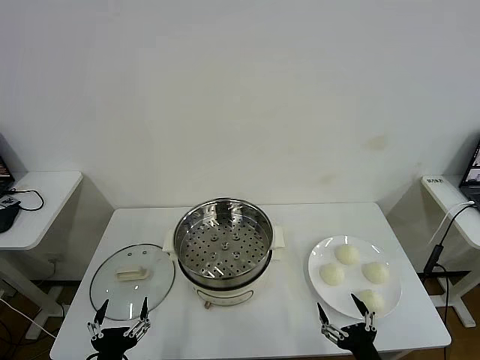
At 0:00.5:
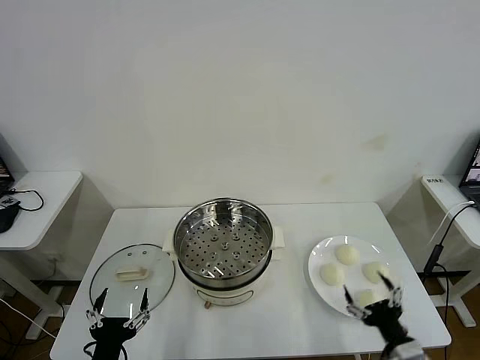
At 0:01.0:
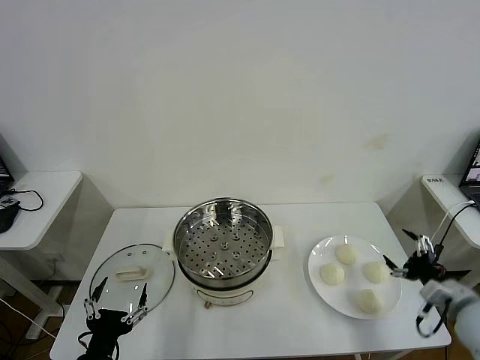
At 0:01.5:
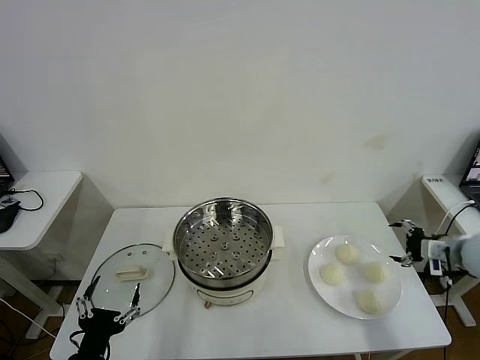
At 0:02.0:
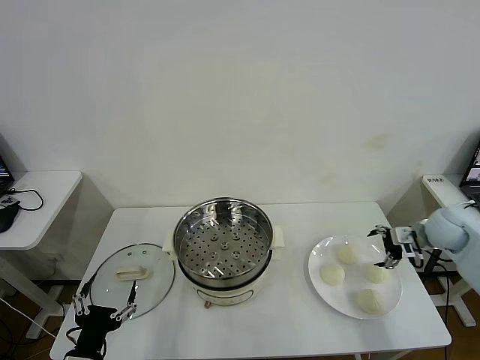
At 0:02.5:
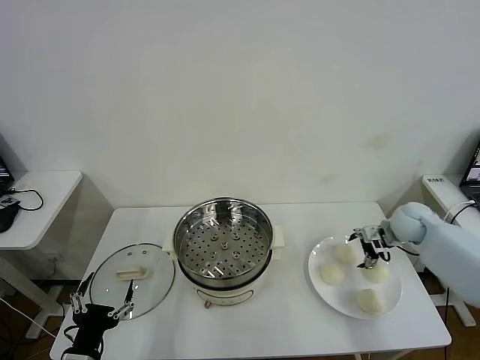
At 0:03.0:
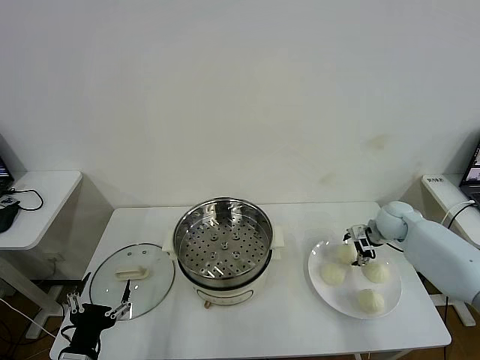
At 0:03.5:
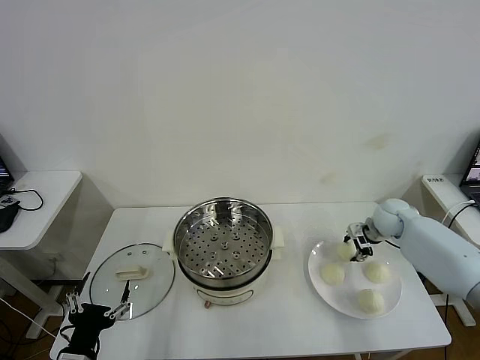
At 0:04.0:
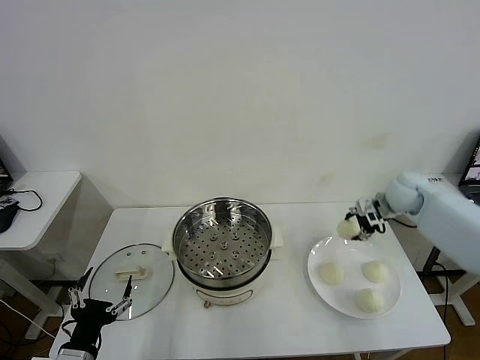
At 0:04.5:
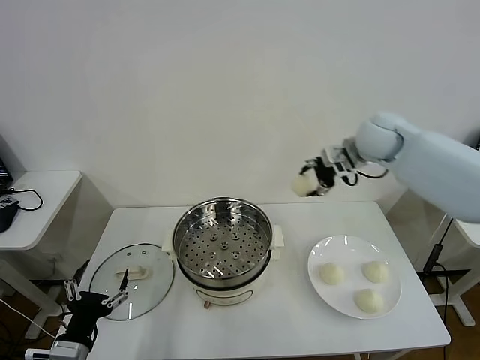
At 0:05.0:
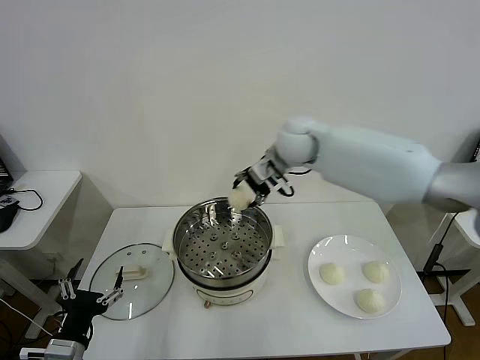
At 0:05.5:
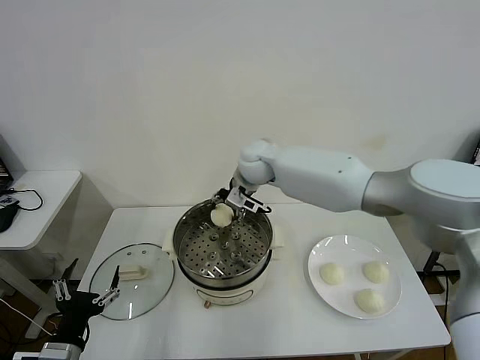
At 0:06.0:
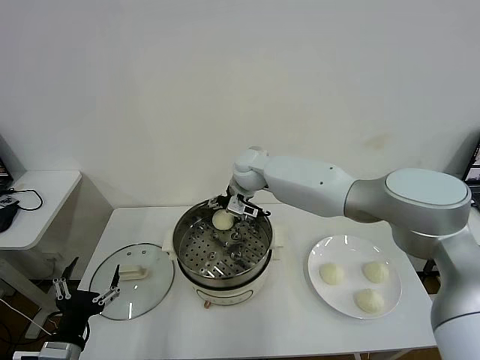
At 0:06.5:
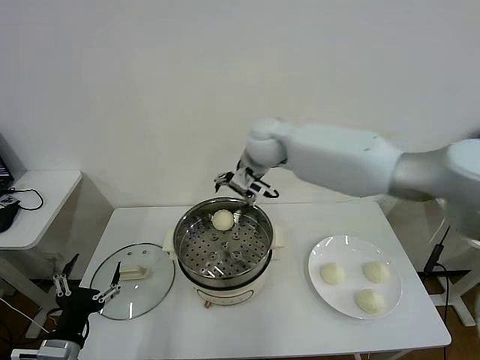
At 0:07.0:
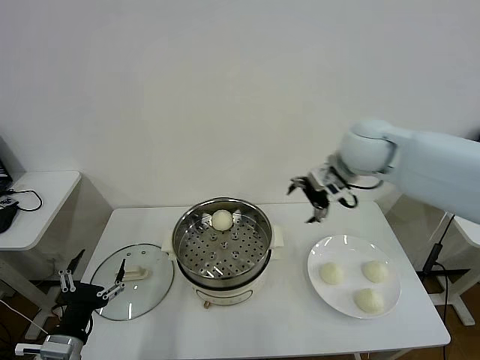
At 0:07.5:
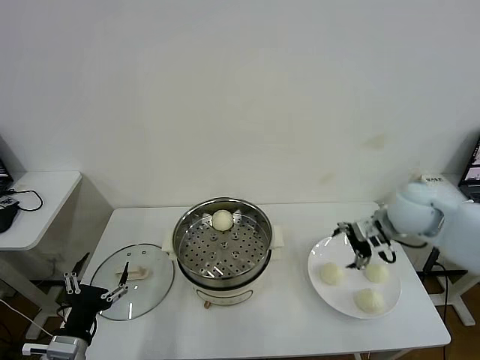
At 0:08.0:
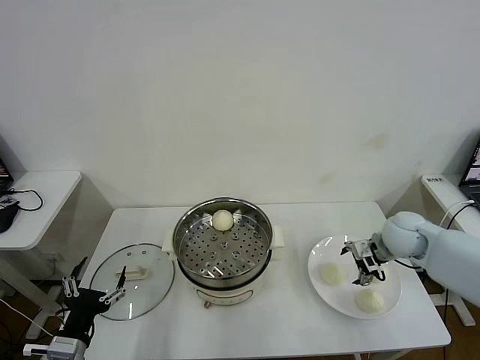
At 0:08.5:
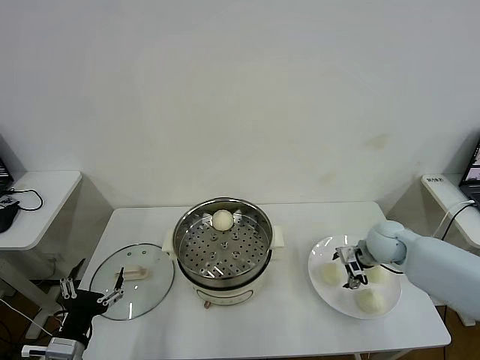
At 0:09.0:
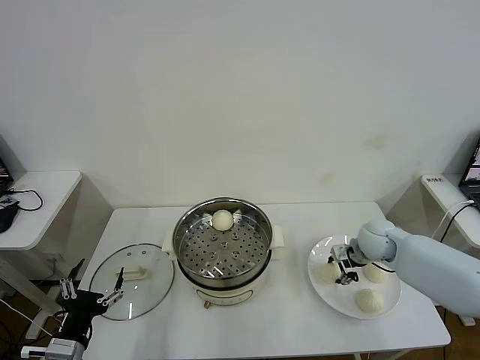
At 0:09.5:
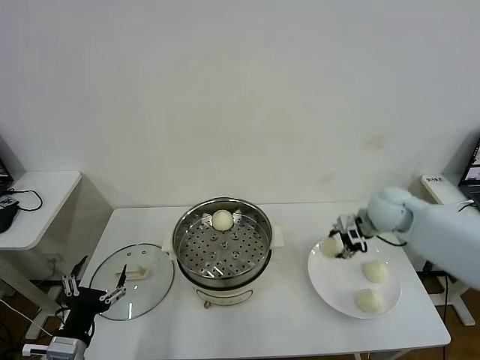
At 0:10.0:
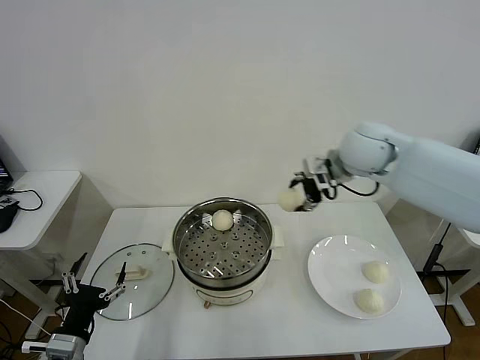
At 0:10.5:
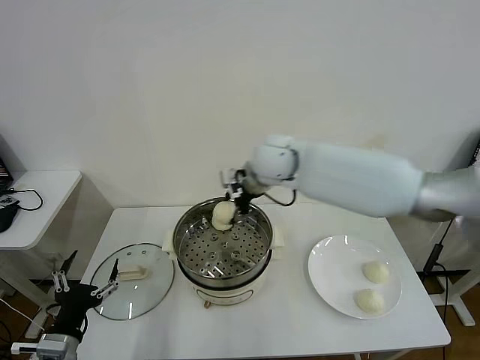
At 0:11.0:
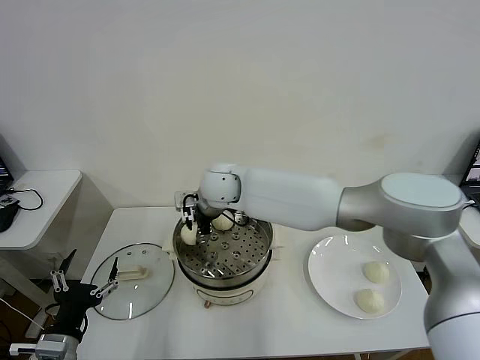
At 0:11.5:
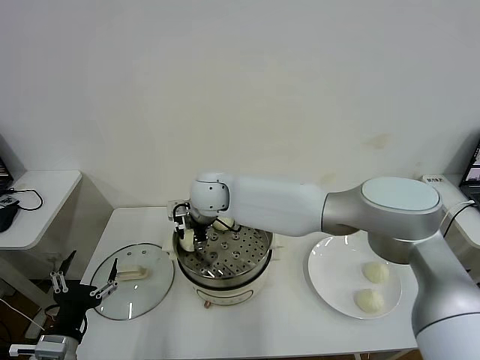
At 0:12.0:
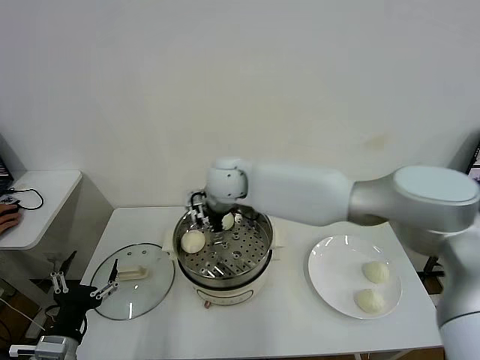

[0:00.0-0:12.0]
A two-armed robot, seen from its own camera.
Task of the whole recording: take steamed baozi put them in steamer then cover it.
Step, 0:00.0 to 0:03.0: Grasp the baozi in the plate with right gripper.
Step, 0:03.5 to 0:06.0: Place the baozi on the steamer with right gripper.
Step, 0:06.5 to 0:08.5: Grasp the baozi in the plate with right gripper.
Step, 0:09.0 to 0:11.5: Place the baozi on the steamer with right gripper.
0:02.0 to 0:04.0: The right gripper is displaced forward and to the left by some 10 cm, and closes up.
0:04.0 to 0:06.0: The right gripper is displaced to the left by some 35 cm, and opens.
0:06.0 to 0:08.0: The right gripper goes roughly 35 cm to the right and backward.
0:08.0 to 0:10.0: The right gripper moves upward and to the left, approximately 25 cm, and closes up.
0:10.0 to 0:12.0: The right gripper moves to the left, some 25 cm, and opens.

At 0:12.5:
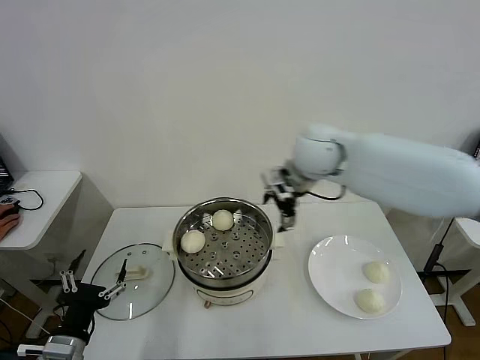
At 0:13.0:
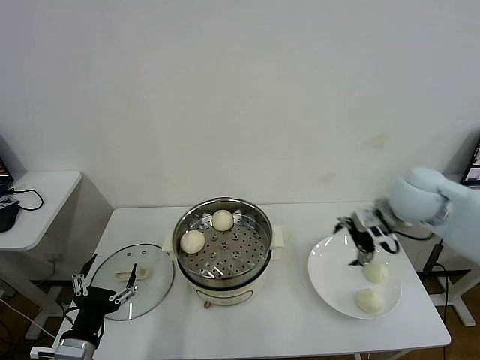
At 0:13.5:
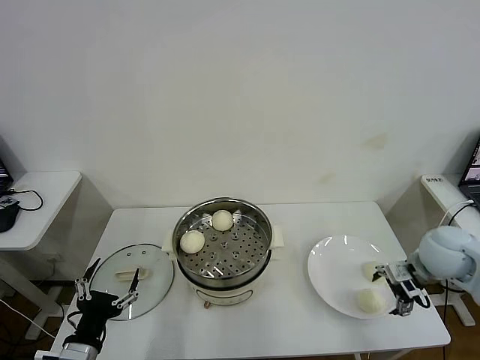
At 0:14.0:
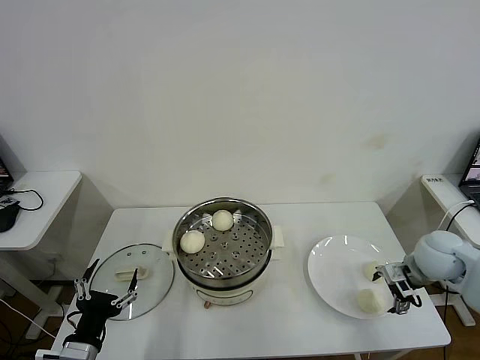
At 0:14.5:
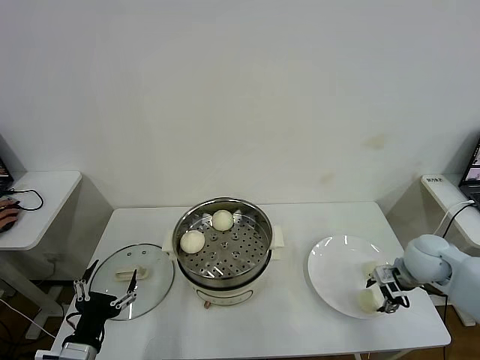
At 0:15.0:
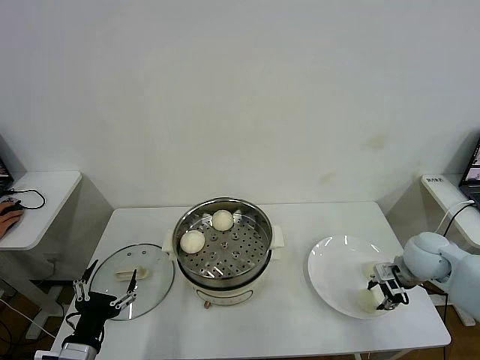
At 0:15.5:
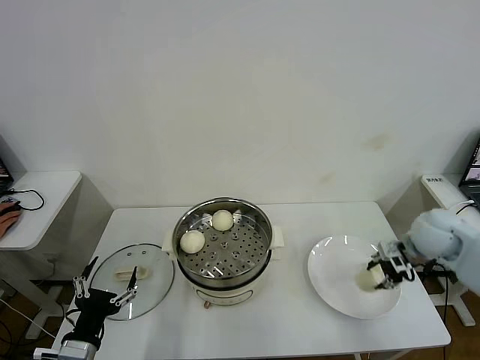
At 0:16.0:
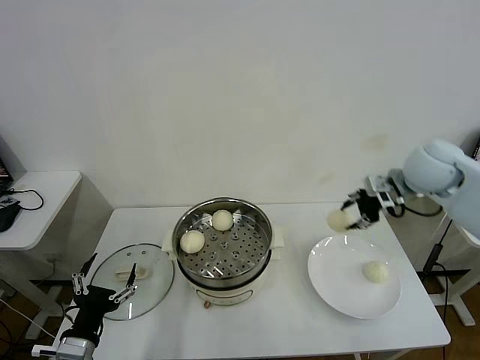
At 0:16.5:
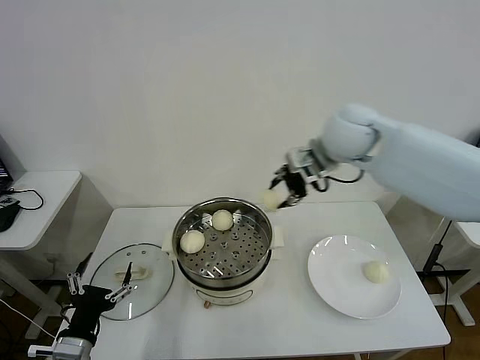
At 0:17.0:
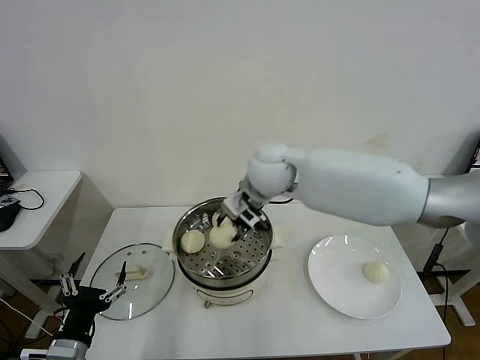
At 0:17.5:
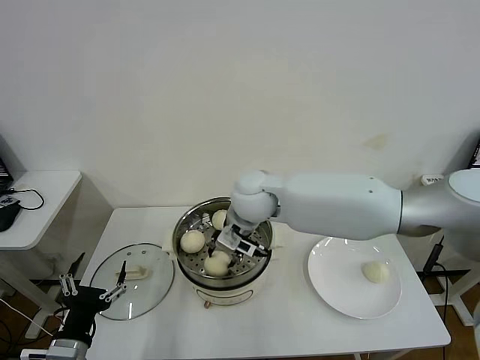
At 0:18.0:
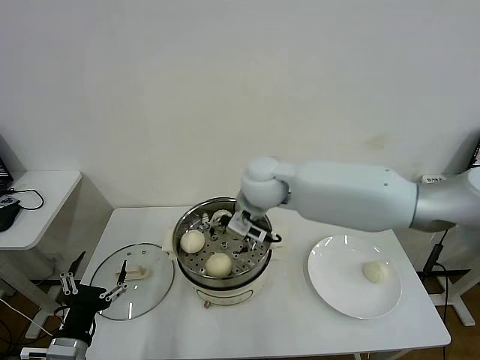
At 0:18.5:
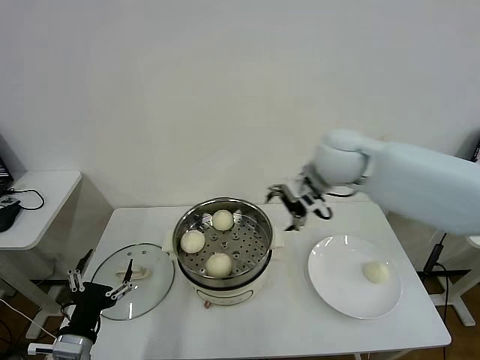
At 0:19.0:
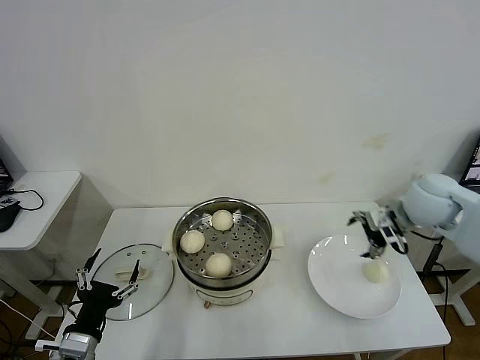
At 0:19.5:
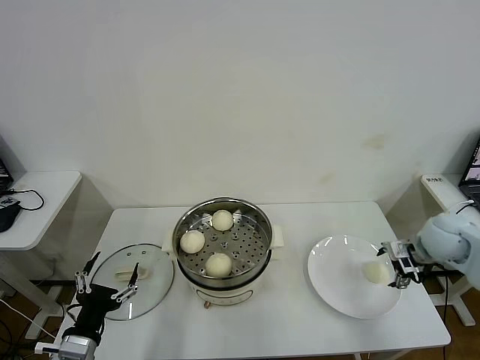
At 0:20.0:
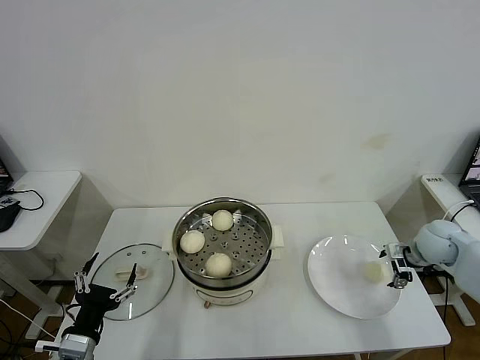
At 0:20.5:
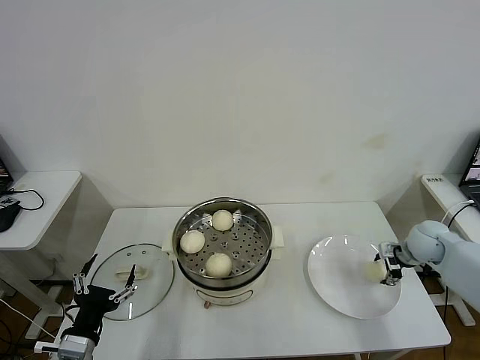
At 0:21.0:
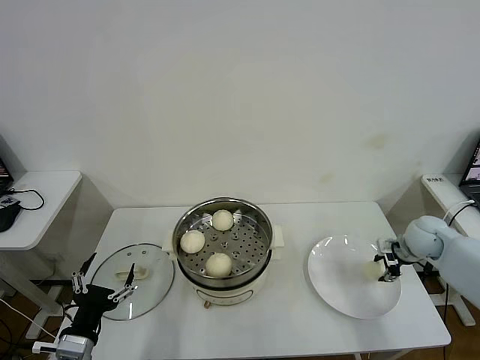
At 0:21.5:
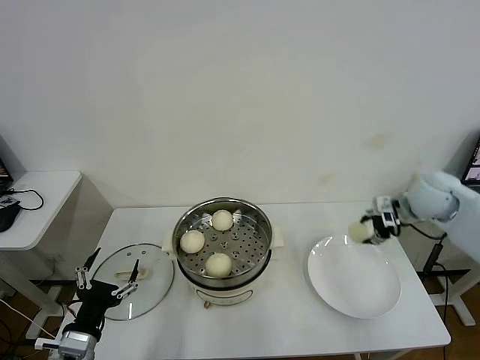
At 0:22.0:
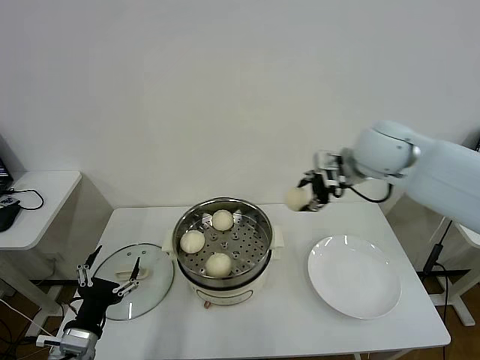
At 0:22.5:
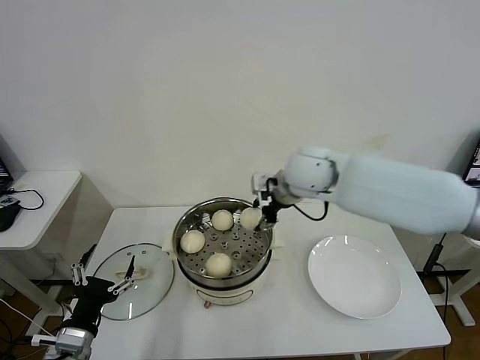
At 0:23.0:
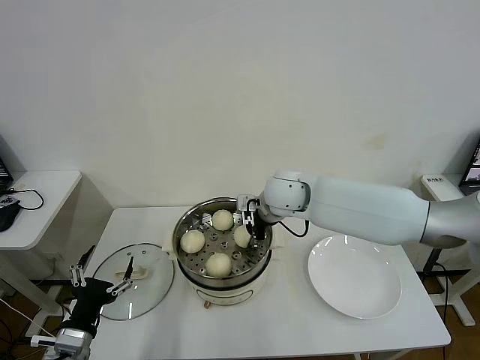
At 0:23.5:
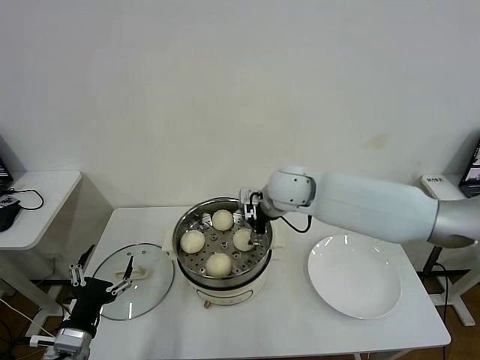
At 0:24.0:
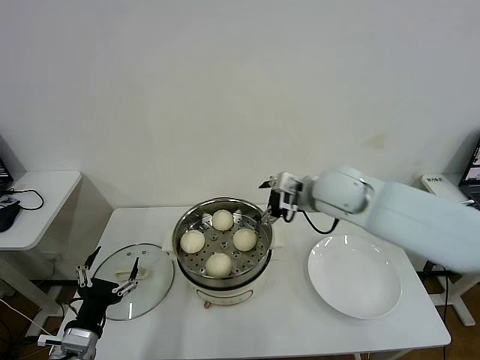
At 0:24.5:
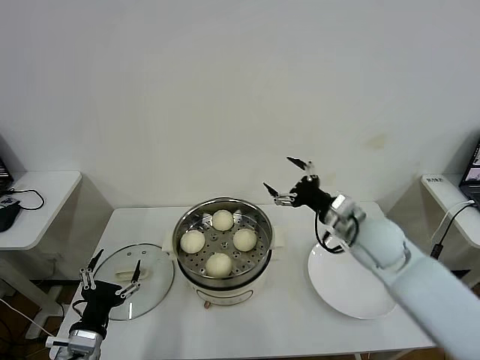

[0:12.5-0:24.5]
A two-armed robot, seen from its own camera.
Task of the whole recording: take steamed baozi put them in steamer then cover it.
Step, 0:12.5 to 0:14.5: Grasp the baozi in the plate with right gripper.
Step, 0:15.0 to 0:17.5: Place the baozi on the steamer with right gripper.
Step, 0:18.0 to 0:20.5: Grasp the baozi in the plate with right gripper.
Step, 0:21.0 to 0:23.0: Place the baozi on the steamer with right gripper.
0:12.5 to 0:14.5: The right gripper travels to the right, downward and backward by approximately 35 cm, and closes up.
0:14.5 to 0:16.5: The right gripper goes some 35 cm upward, to the left and forward, and closes up.
0:16.5 to 0:18.5: The right gripper goes to the left and returns, about 15 cm each way, and opens.
0:18.5 to 0:20.5: The right gripper goes roughly 35 cm to the right and downward, and closes.
0:20.5 to 0:22.5: The right gripper is displaced to the left and upward by about 40 cm, and closes.
0:22.5 to 0:24.5: The right gripper heads to the right, downward and backward, covering about 20 cm, and opens its fingers.

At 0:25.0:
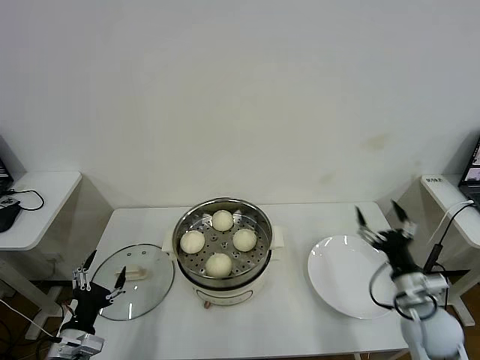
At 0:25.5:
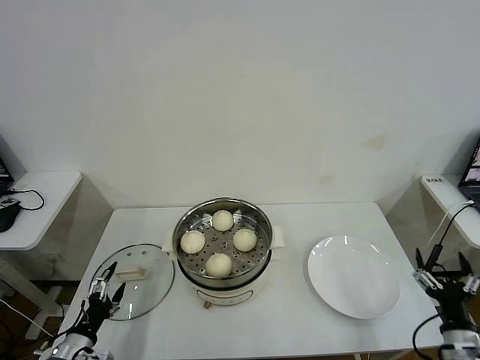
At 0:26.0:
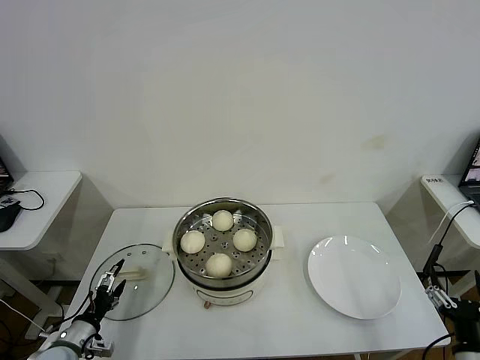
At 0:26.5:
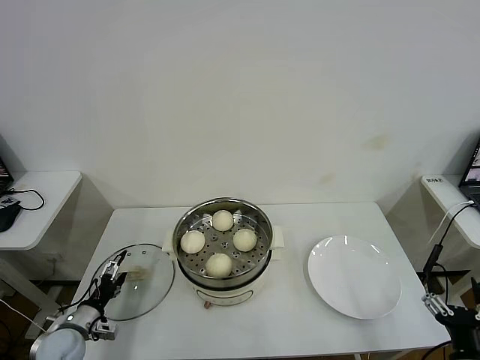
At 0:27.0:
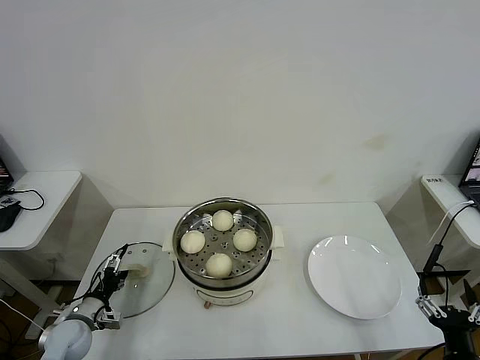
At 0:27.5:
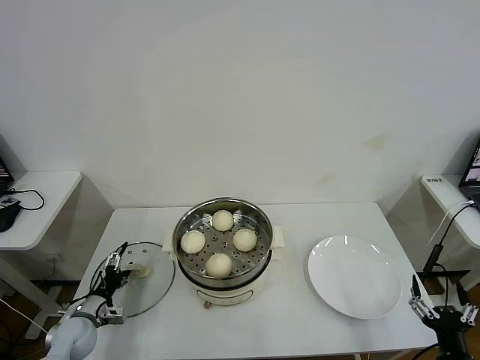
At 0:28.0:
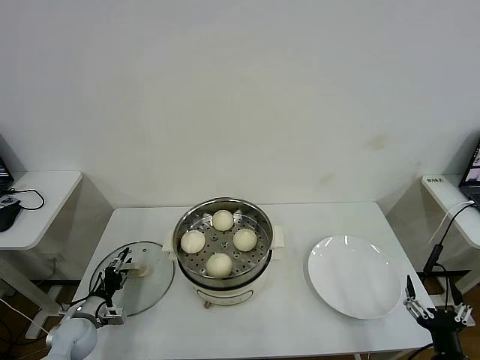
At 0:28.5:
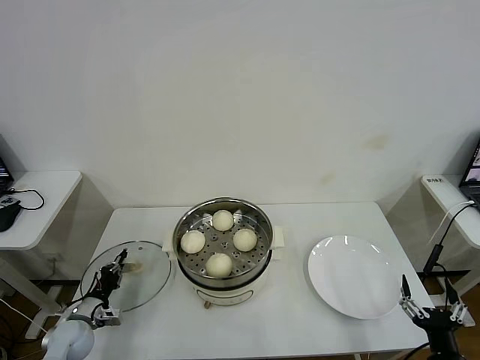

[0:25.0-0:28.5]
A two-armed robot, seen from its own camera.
Task of the whole recording: take steamed baozi put them in steamer then cover it.
Step, 0:25.0 to 0:28.5: Grasp the pot lid with left gripper.
0:25.0 to 0:27.0: The right gripper goes about 20 cm backward; the left gripper moves forward, downward and to the left, some 15 cm.
0:27.0 to 0:28.5: The left gripper closes up.
